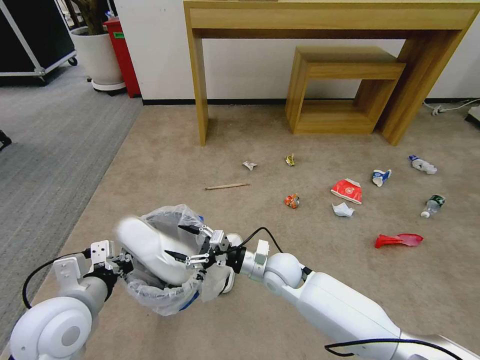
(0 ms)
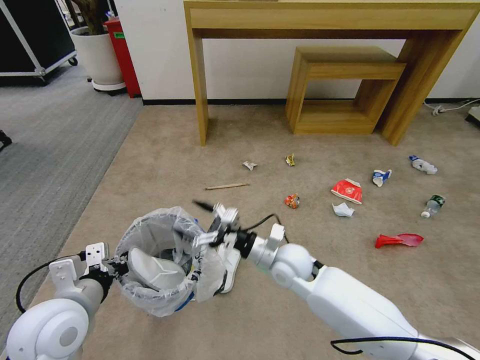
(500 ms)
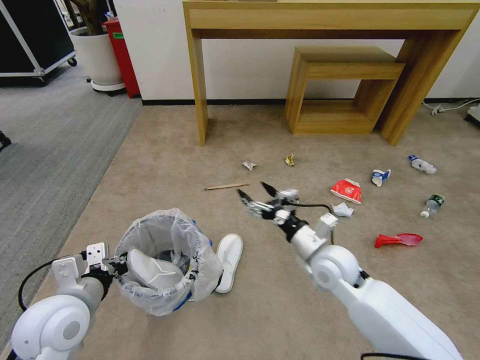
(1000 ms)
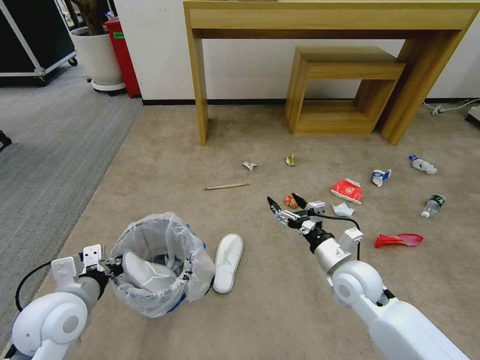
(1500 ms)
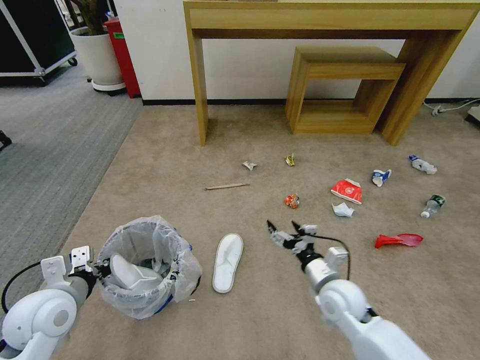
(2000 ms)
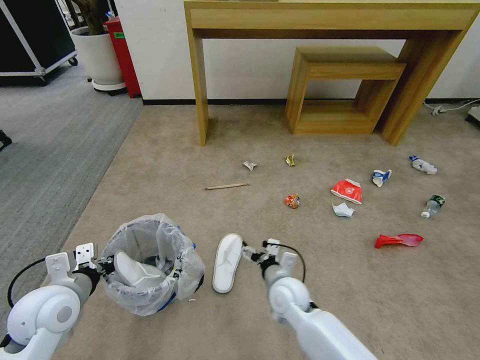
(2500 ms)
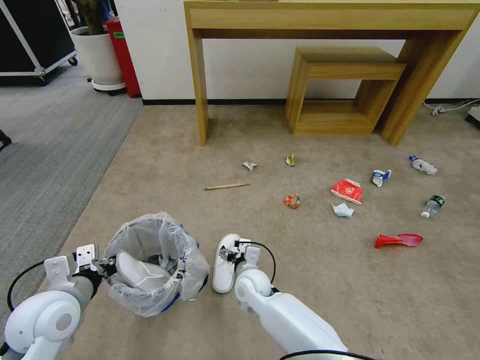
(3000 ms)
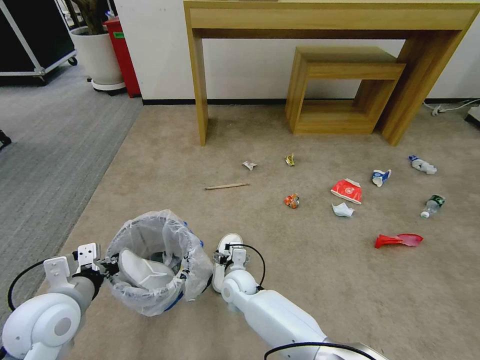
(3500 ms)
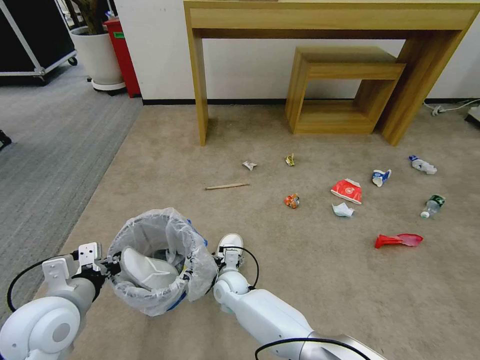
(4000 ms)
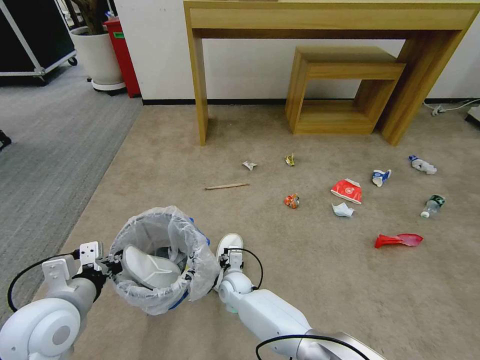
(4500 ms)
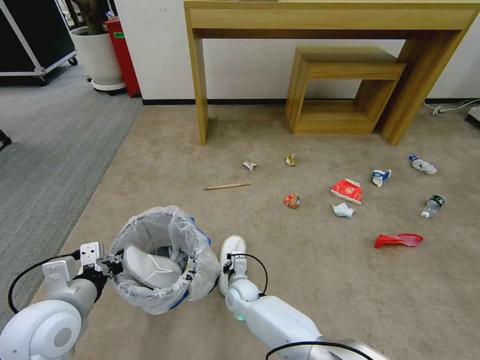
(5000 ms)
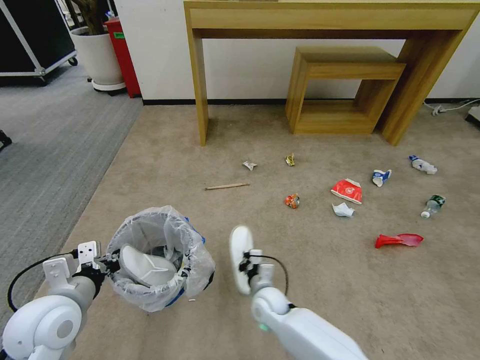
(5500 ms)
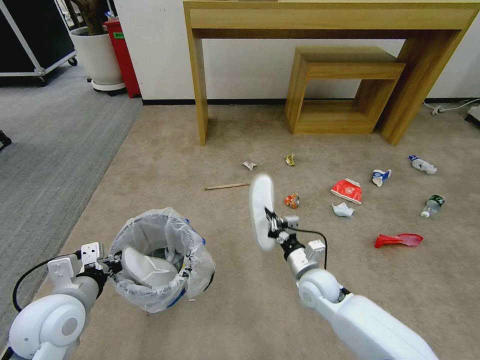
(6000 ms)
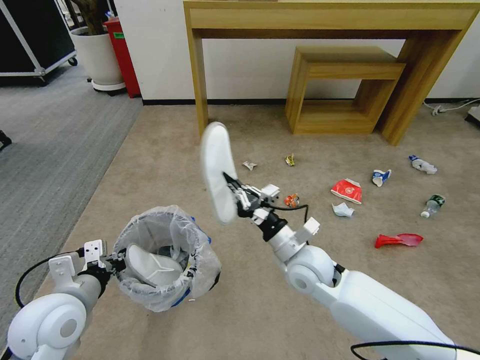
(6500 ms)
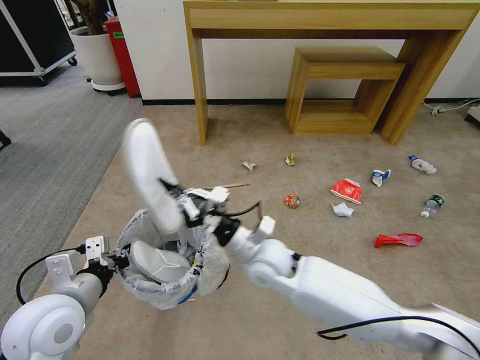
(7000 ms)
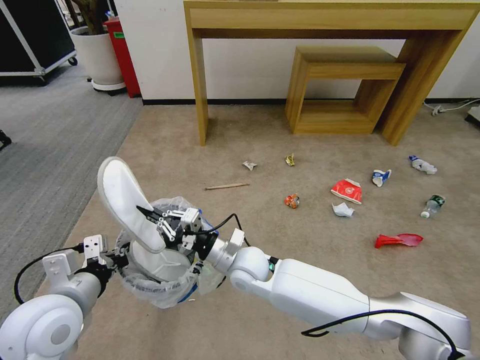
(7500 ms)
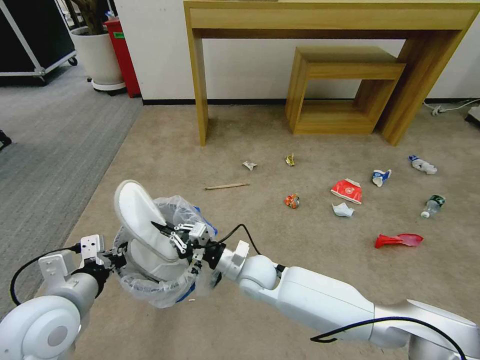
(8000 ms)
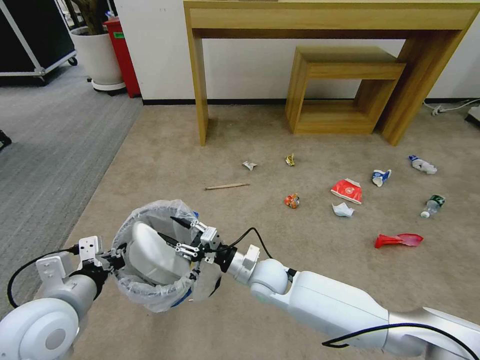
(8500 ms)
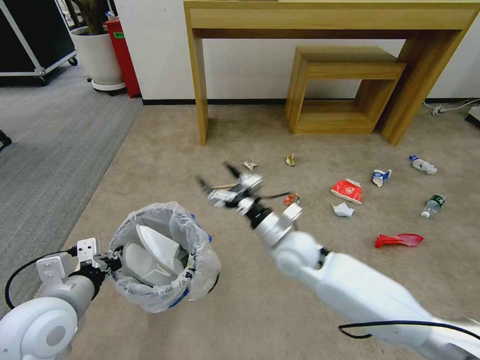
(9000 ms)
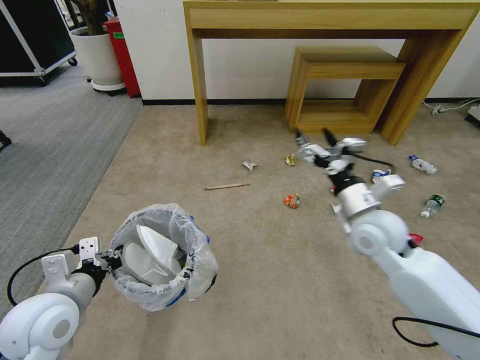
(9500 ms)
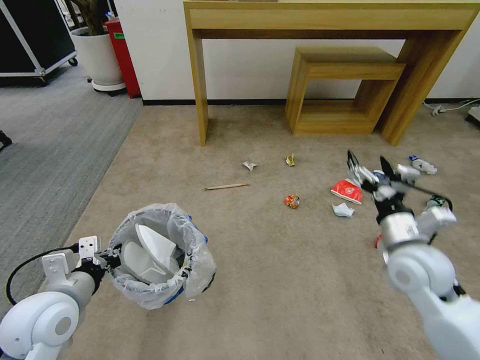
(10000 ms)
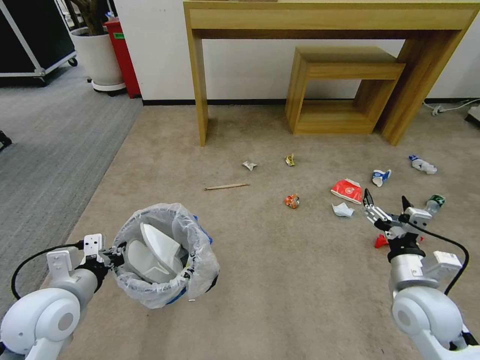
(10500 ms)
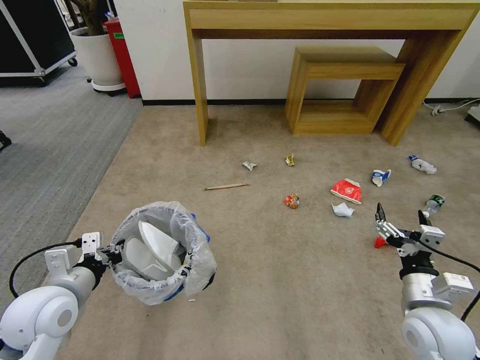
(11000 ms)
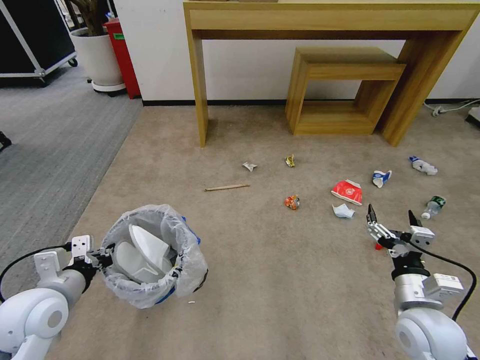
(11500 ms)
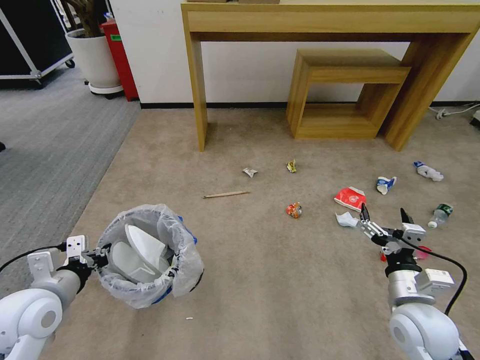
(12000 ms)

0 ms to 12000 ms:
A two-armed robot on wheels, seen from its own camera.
Task of the whole recording: Pick up the trash bin and place the garbage on the floor into it.
0 ms to 2000 ms: The right gripper travels to the right and backward by approximately 15 cm. The left gripper travels to the left by roughly 5 cm.
2000 ms to 4000 ms: The right gripper travels to the left and downward by approximately 30 cm.
4000 ms to 6000 ms: The right gripper heads to the right, covering about 20 cm, and closes.
6000 ms to 8000 ms: The right gripper travels to the left by approximately 15 cm.
8000 ms to 10000 ms: The right gripper travels to the right and upward by some 30 cm, and opens its fingers.
10000 ms to 12000 ms: The right gripper travels downward and backward by roughly 10 cm.

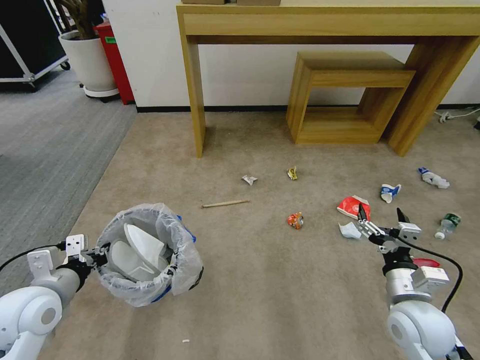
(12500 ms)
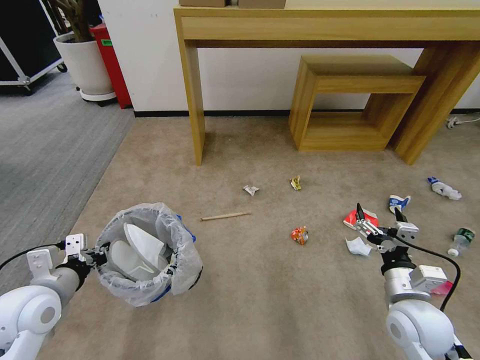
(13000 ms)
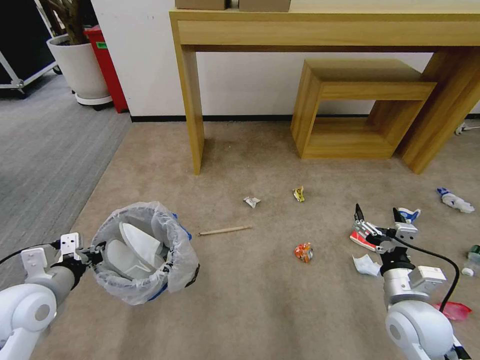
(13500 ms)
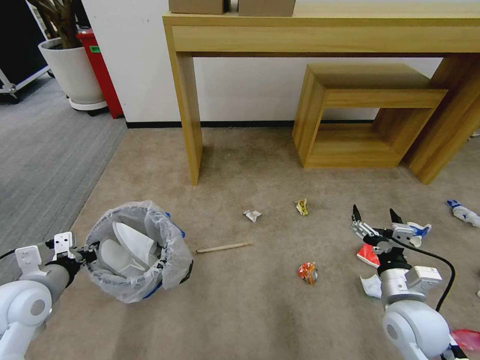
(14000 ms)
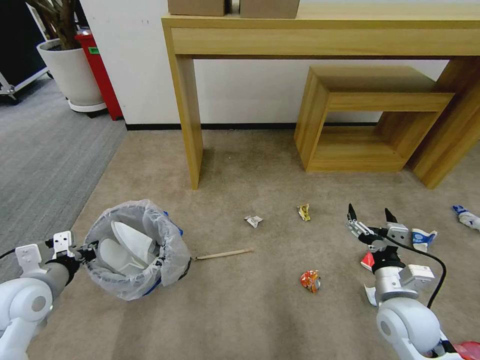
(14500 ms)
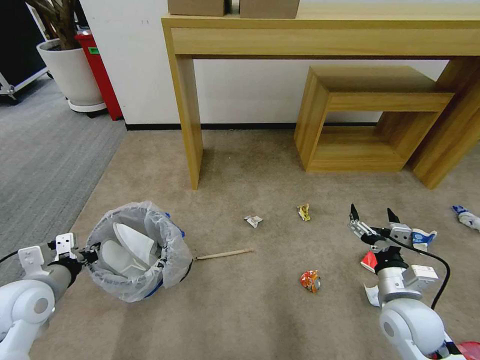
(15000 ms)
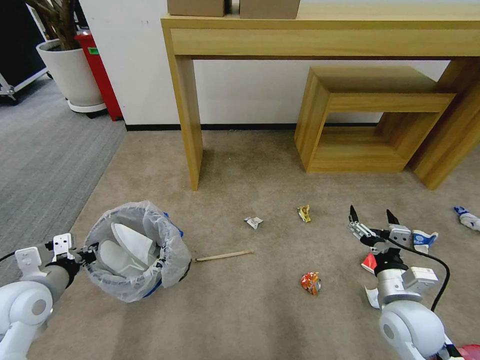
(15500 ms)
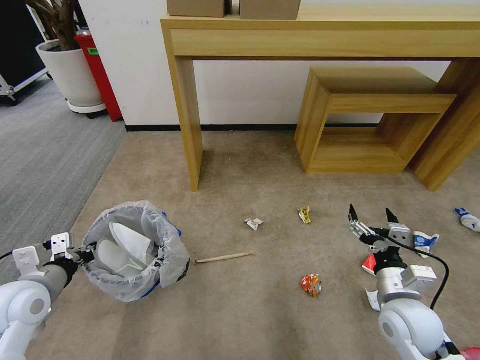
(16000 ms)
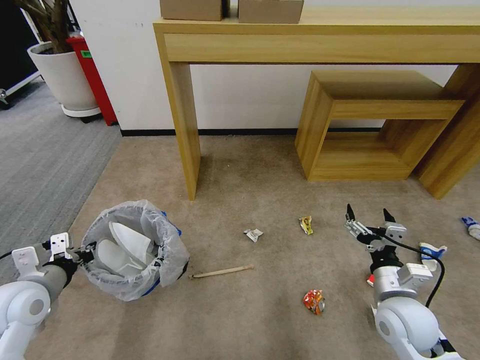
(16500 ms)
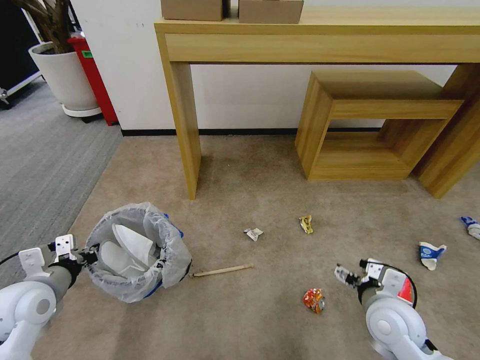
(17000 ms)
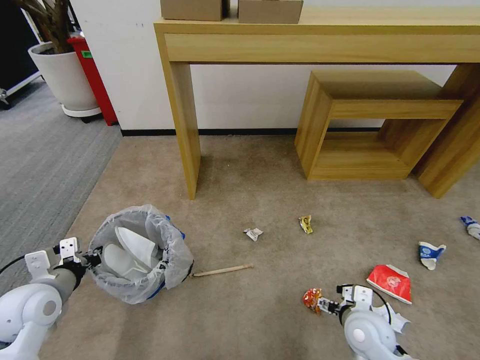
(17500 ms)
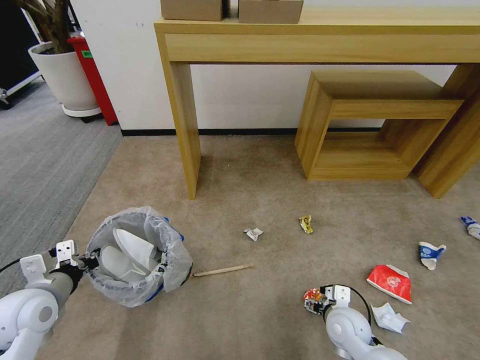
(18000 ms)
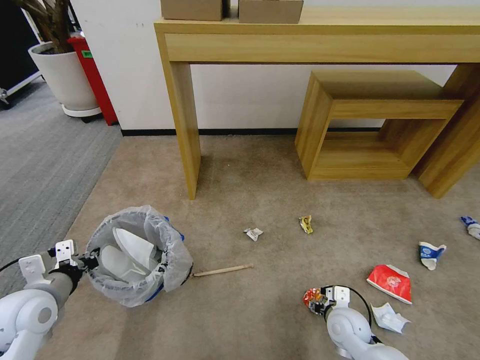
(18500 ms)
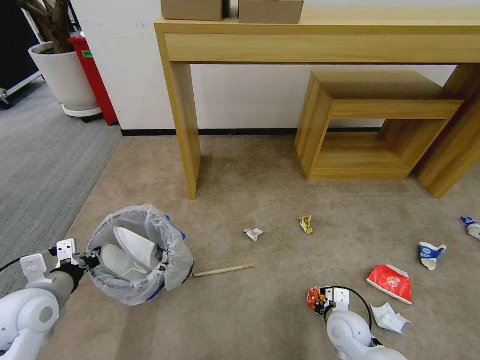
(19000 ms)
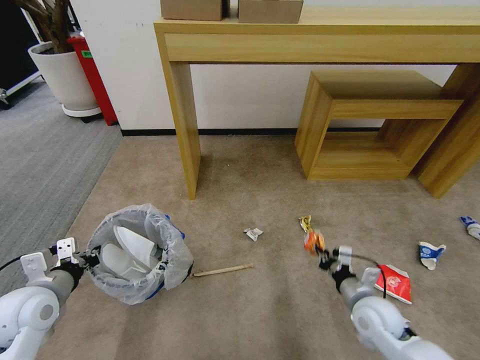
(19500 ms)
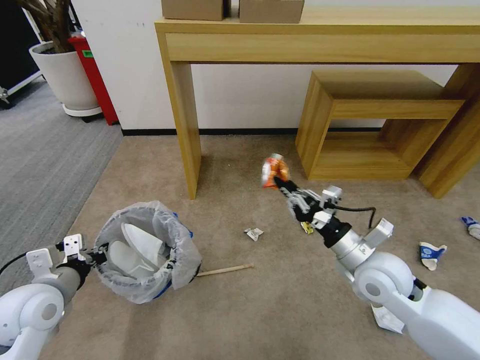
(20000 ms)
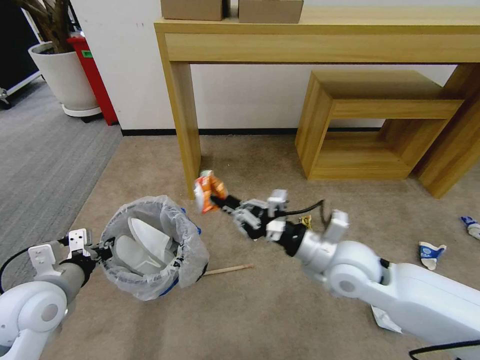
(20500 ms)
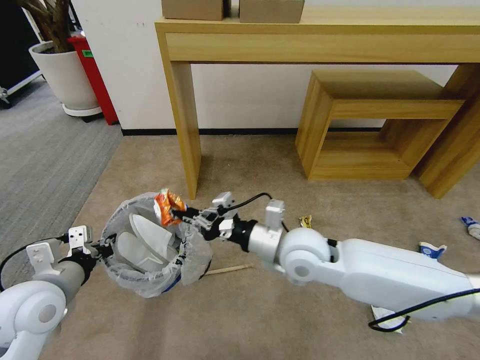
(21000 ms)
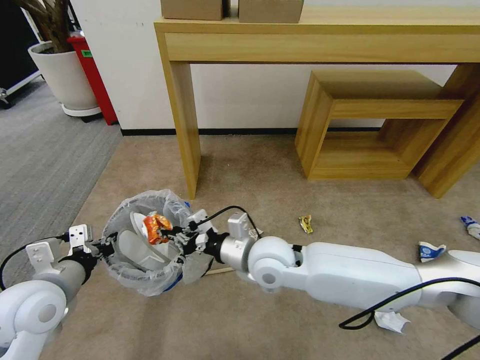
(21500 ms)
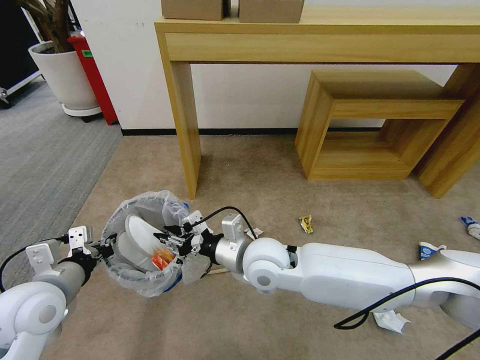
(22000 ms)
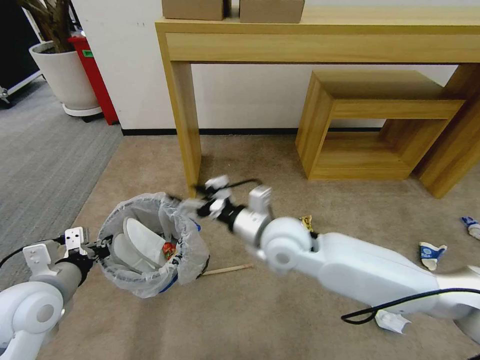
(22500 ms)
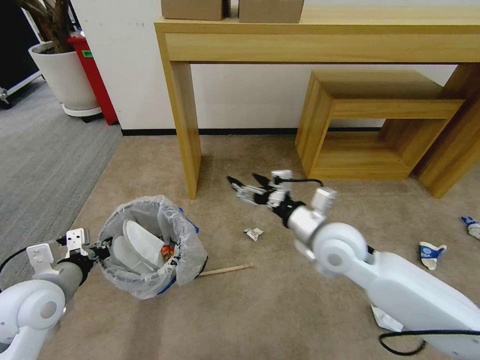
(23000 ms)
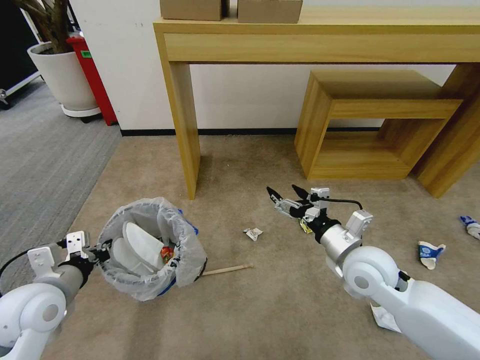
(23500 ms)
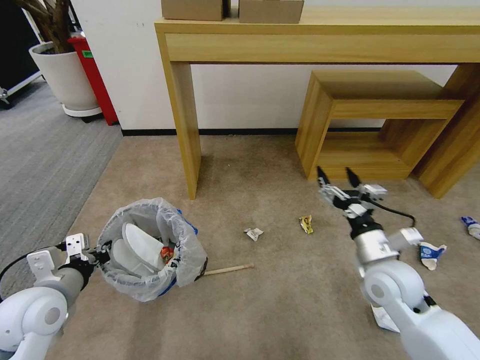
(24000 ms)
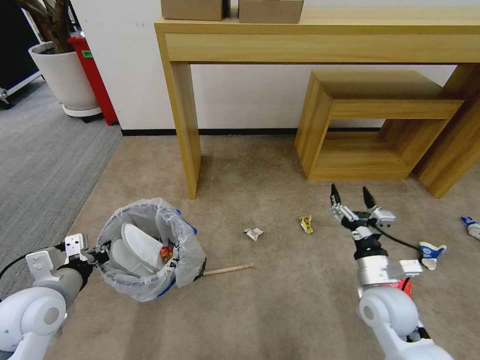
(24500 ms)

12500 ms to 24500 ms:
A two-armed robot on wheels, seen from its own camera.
Task of the whole recording: Pick up the trash bin and place the garbage on the floor into it.
14500 ms to 16500 ms: Both grippers stay put.
16500 ms to 18500 ms: The right gripper goes approximately 15 cm downward.
18500 ms to 20500 ms: The left gripper shifts by some 5 cm, while the right gripper moves upward, some 25 cm, and closes its fingers.
20500 ms to 22500 ms: The right gripper heads to the left, covering roughly 10 cm, and opens its fingers.
22500 ms to 24500 ms: The right gripper travels to the right and downward by approximately 25 cm.

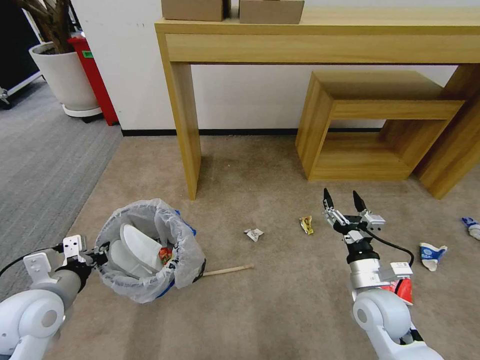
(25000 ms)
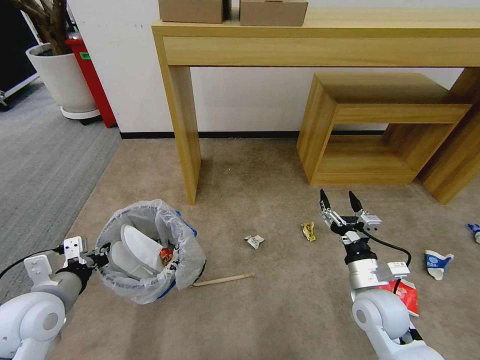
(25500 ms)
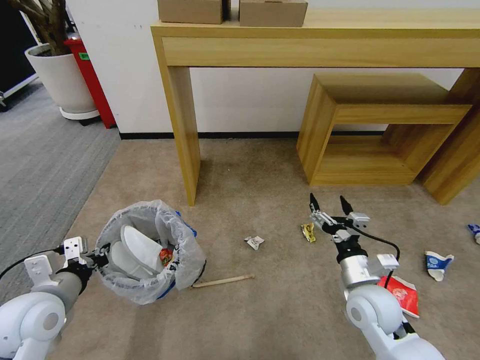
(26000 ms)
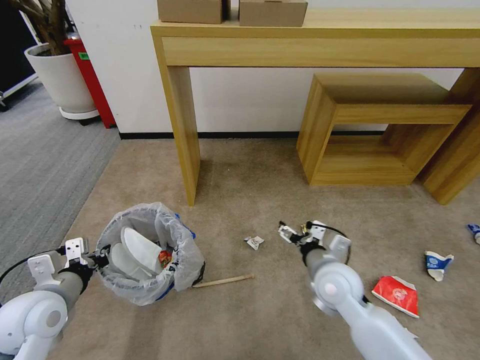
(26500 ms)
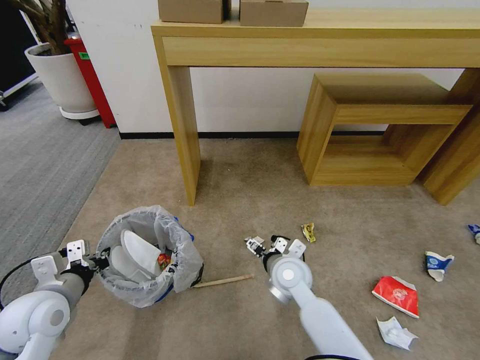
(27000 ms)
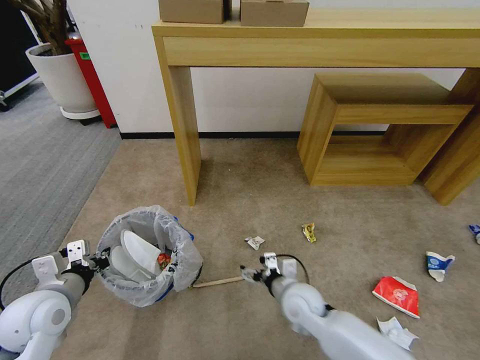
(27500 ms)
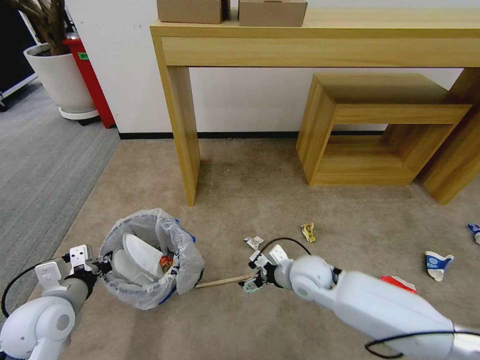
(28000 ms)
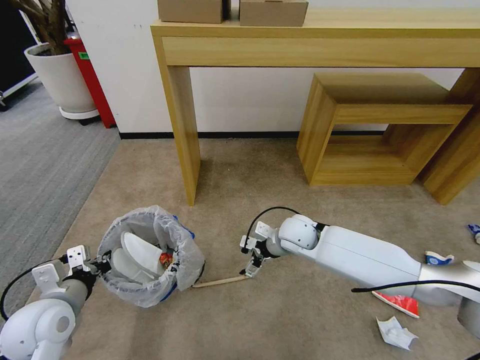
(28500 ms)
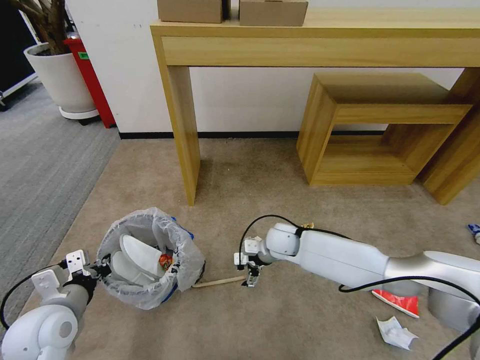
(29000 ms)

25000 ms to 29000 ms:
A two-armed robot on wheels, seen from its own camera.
Task of the whole recording: Pick up the trash bin and place the garbage on the floor into it.
25000 ms to 27000 ms: The right gripper shifts roughly 20 cm to the left and forward.
27000 ms to 29000 ms: The right gripper moves forward, about 10 cm.
